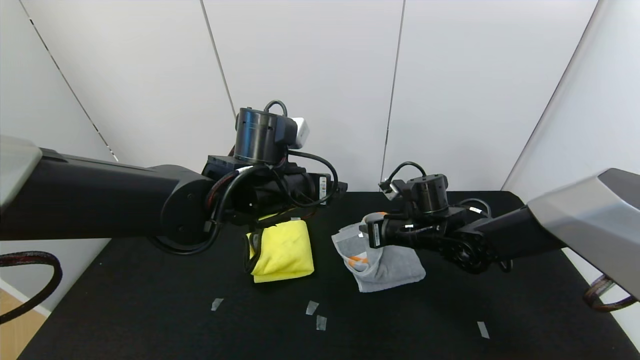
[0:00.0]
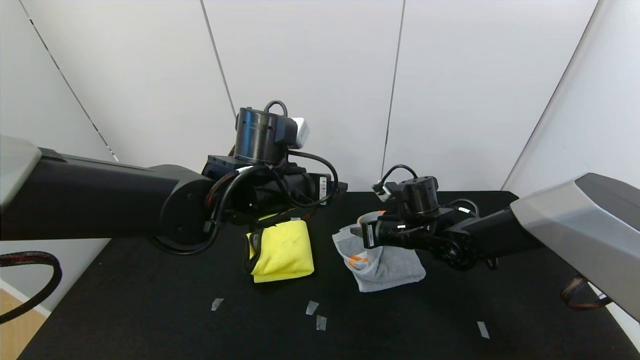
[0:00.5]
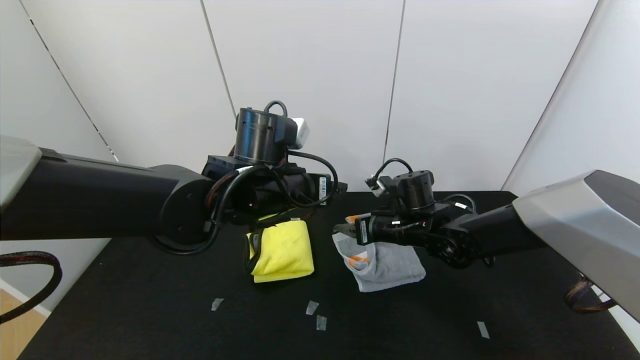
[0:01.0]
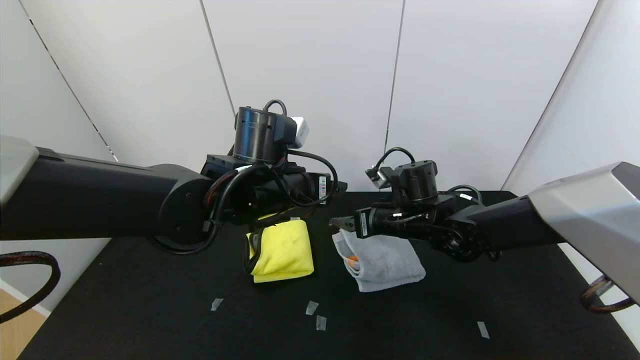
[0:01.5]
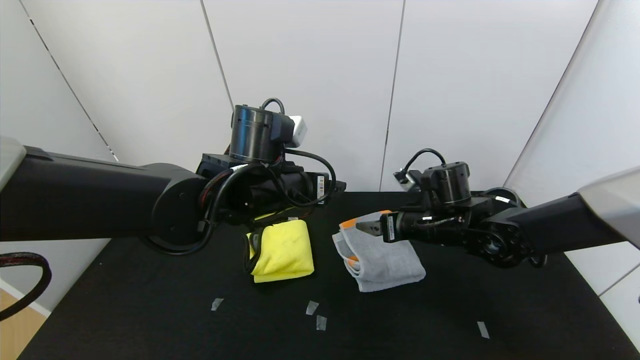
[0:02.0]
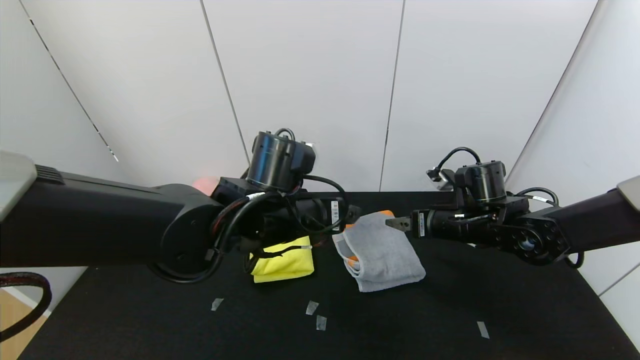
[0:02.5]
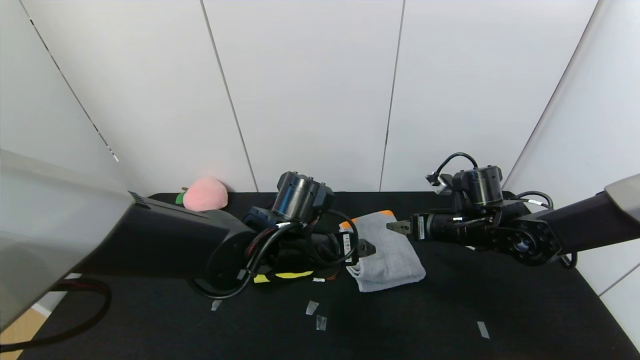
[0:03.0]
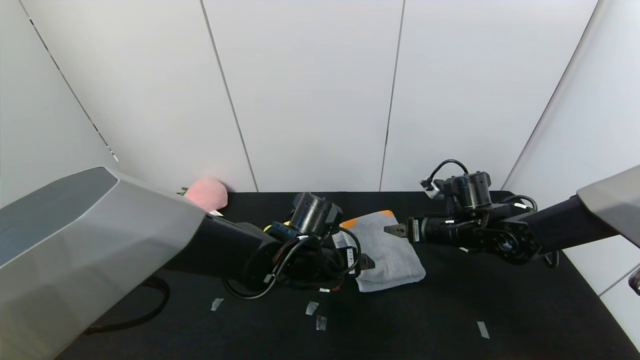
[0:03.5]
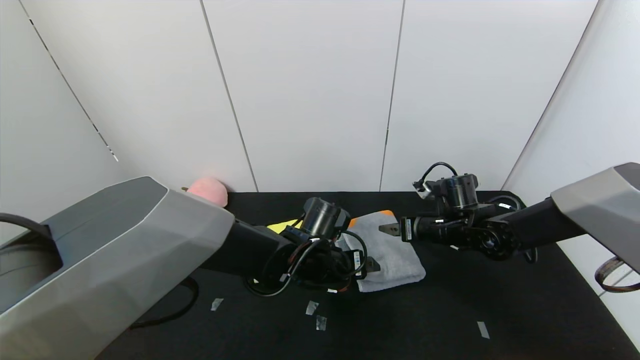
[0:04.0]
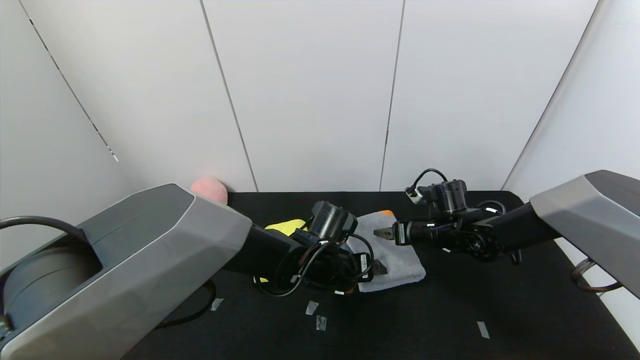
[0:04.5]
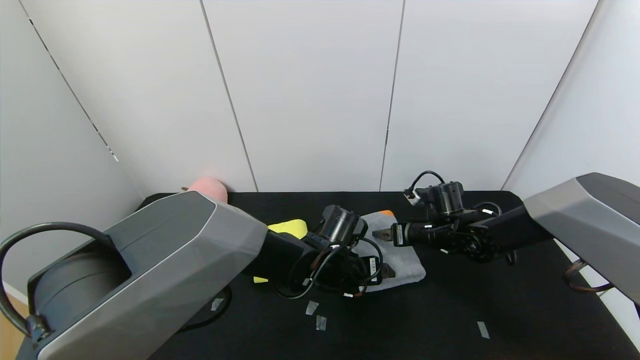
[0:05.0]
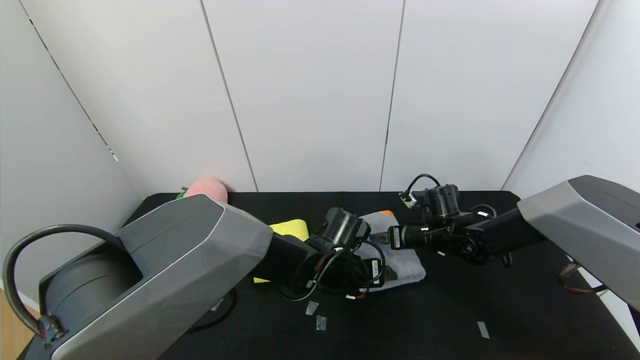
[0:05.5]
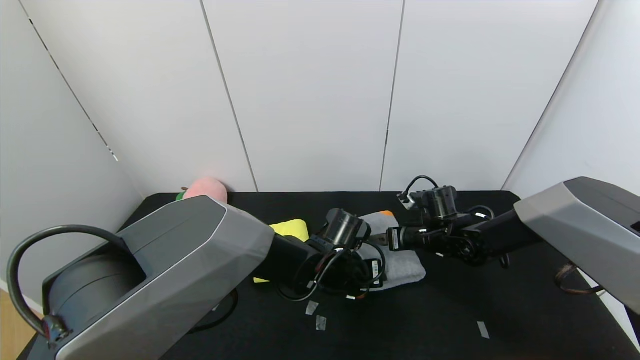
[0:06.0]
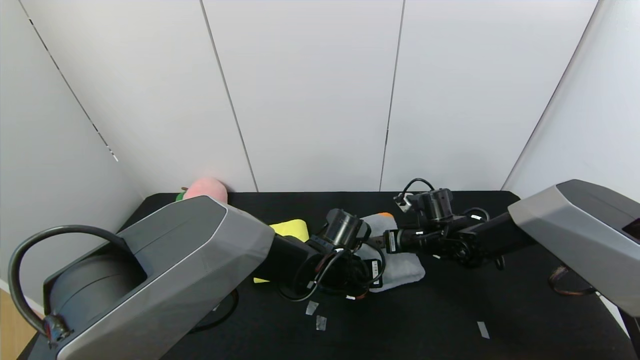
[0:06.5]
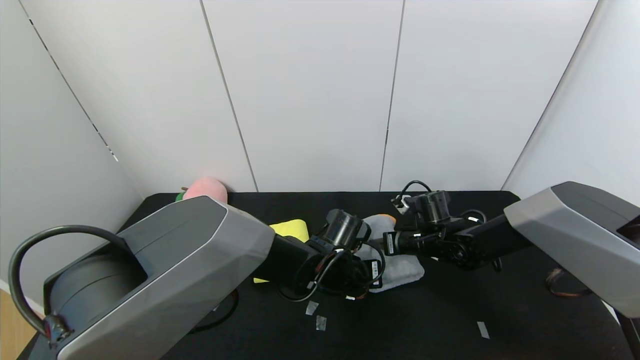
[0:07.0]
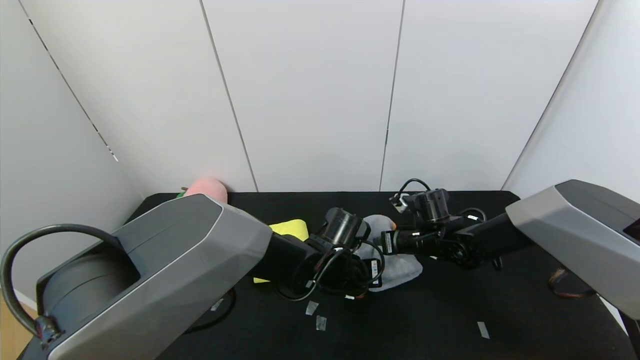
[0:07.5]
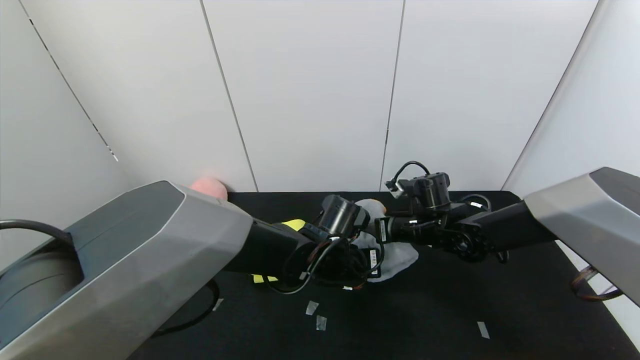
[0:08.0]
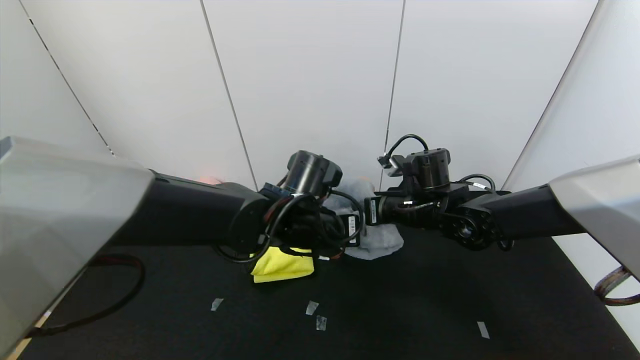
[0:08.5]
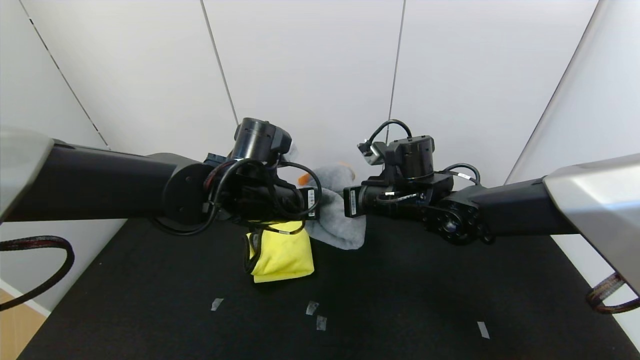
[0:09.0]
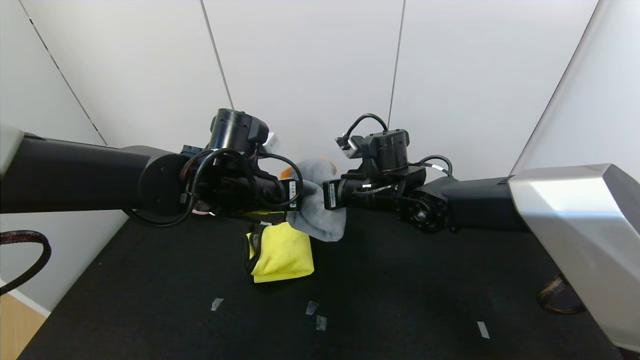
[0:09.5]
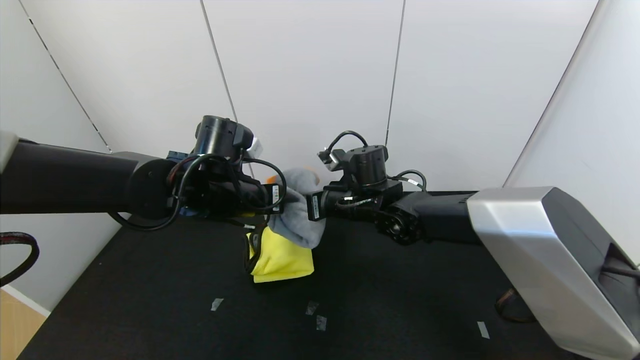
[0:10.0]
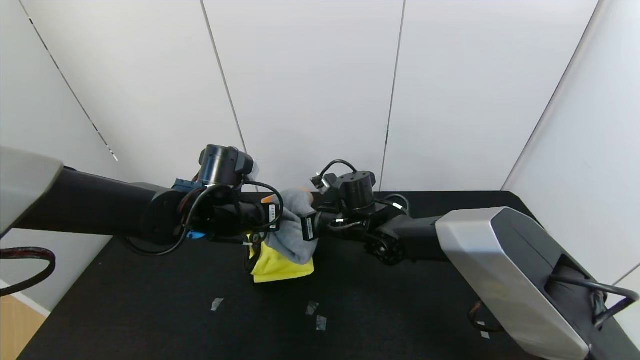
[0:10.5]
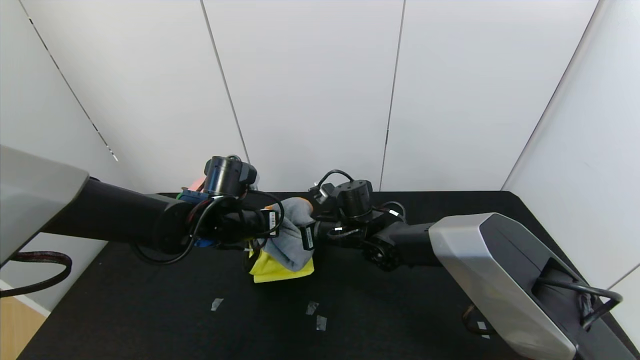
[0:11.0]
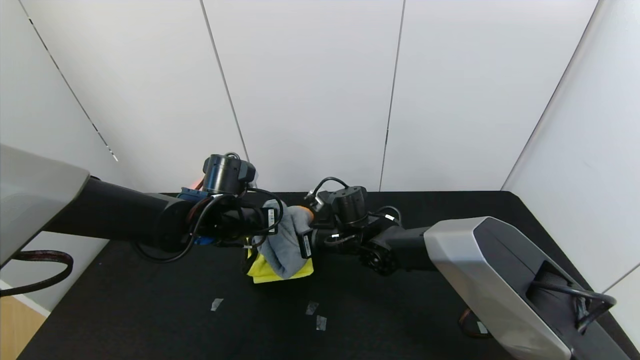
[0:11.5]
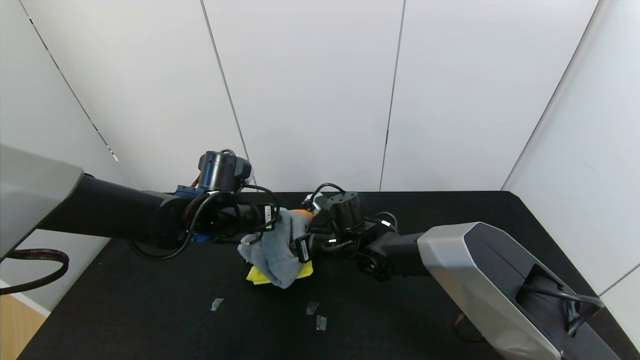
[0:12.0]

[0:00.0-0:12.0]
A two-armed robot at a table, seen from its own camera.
Task of the whole recording: Use the gripper to fold the yellow towel and grey towel in half twice,then put the yellow towel on the grey towel.
0:00.0 to 0:02.0: The right gripper opens up.
0:02.0 to 0:04.0: The left gripper goes approximately 15 cm downward, while the right gripper shifts by some 10 cm.
0:04.0 to 0:06.0: The left gripper closes up.
0:06.0 to 0:08.0: The left gripper closes up. The right gripper shifts by some 5 cm, and closes its fingers.
0:08.0 to 0:10.0: Both grippers move to the left and upward, roughly 15 cm.
0:10.0 to 0:12.0: The right gripper moves downward, roughly 10 cm, and opens up, while the left gripper goes about 5 cm downward, and opens up.

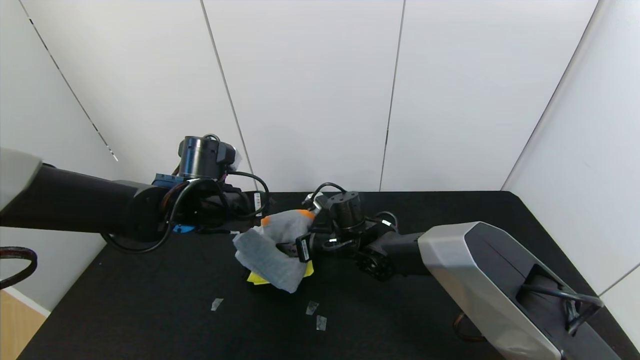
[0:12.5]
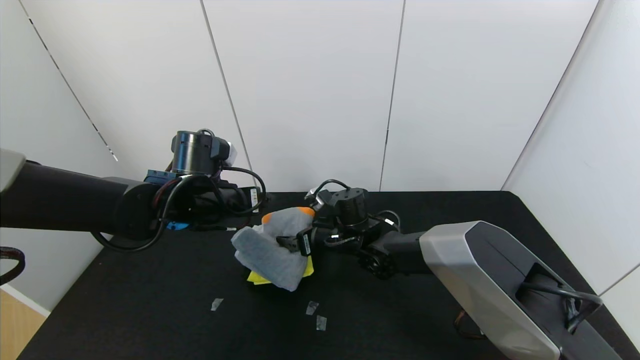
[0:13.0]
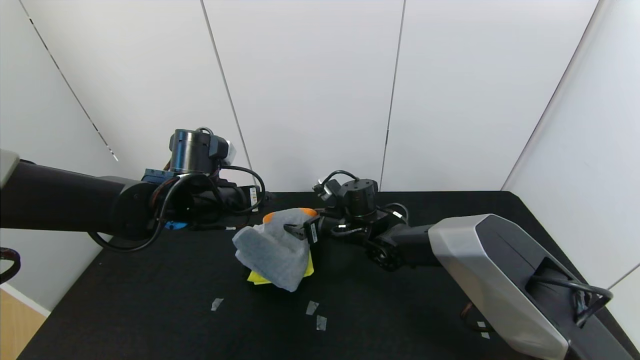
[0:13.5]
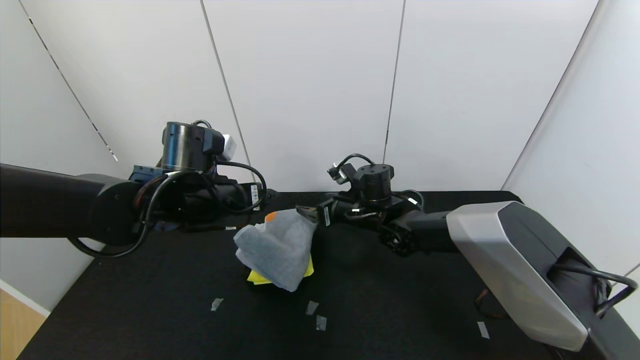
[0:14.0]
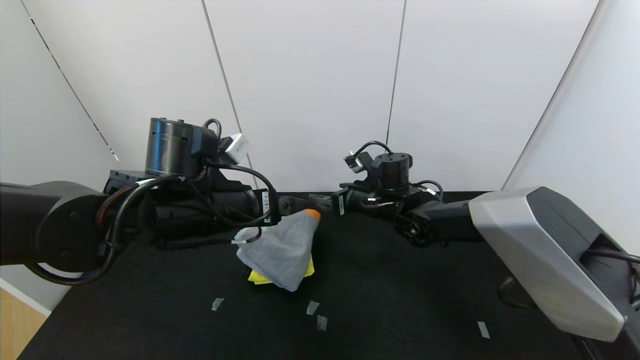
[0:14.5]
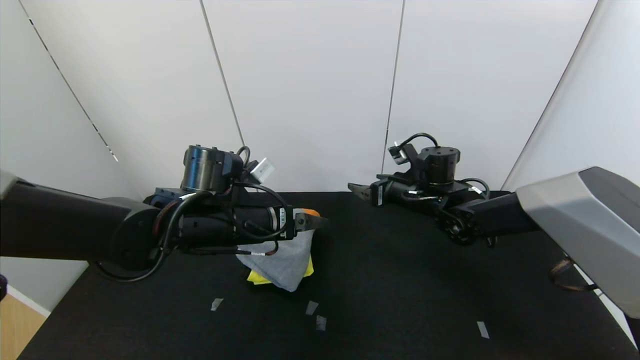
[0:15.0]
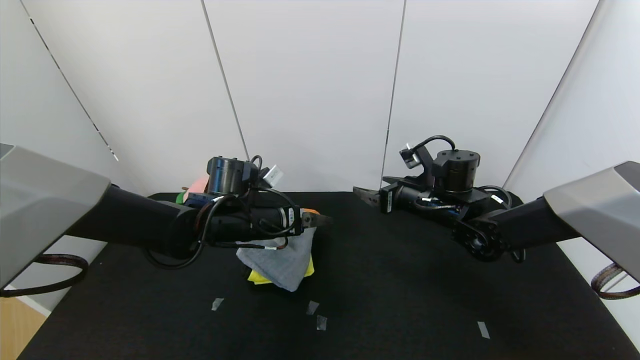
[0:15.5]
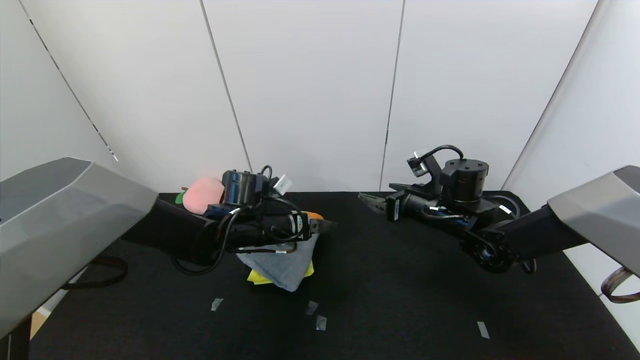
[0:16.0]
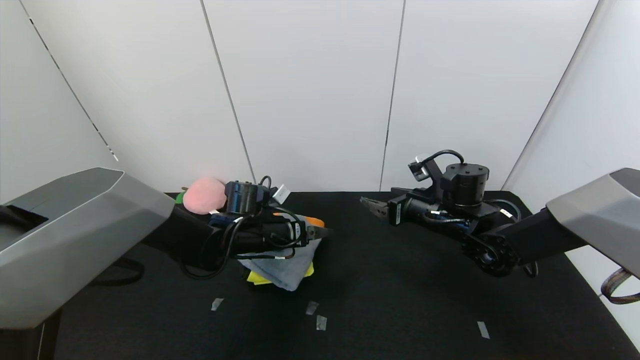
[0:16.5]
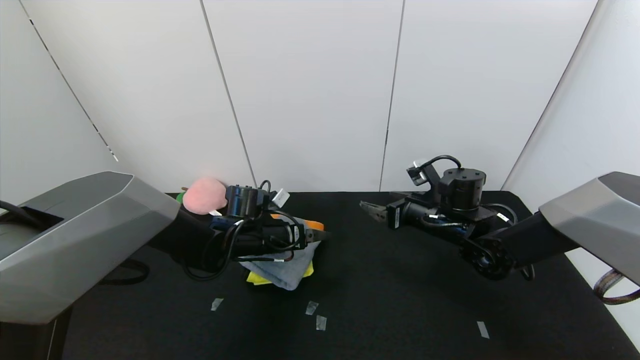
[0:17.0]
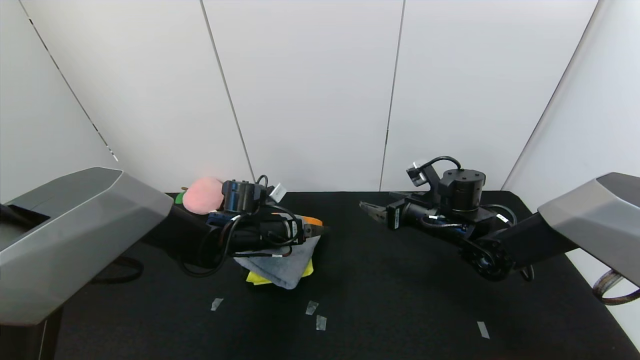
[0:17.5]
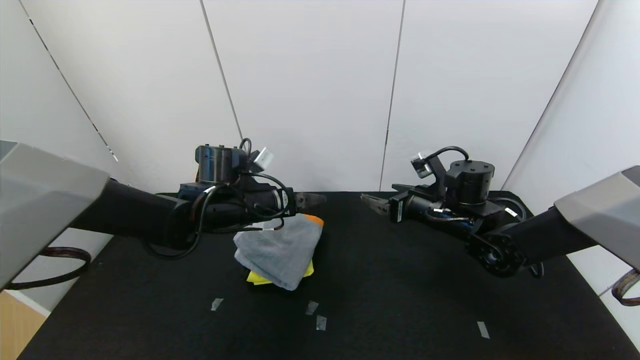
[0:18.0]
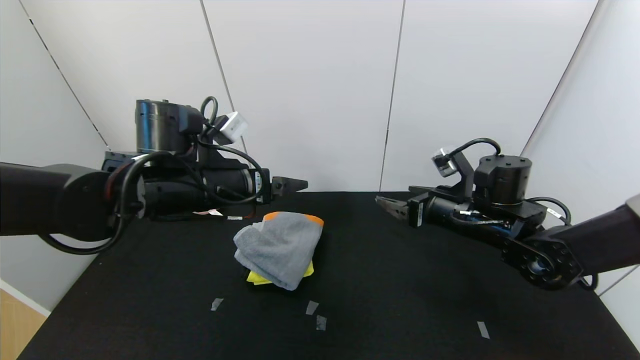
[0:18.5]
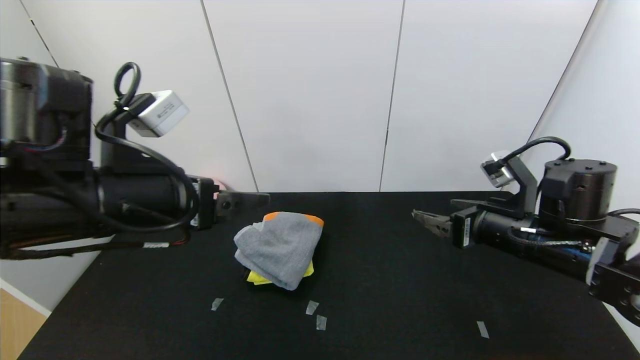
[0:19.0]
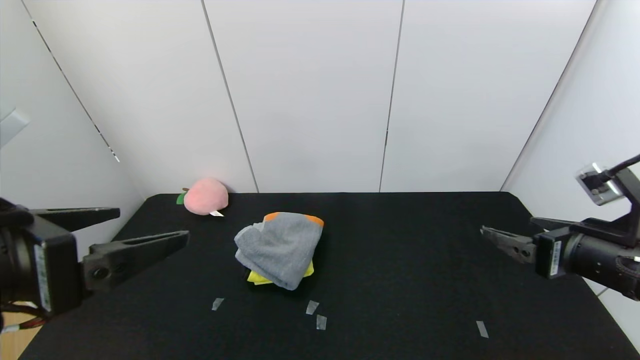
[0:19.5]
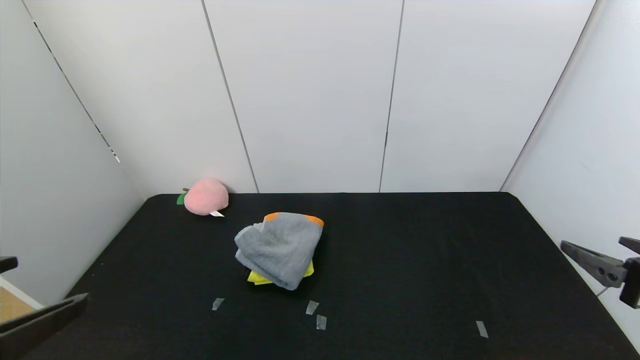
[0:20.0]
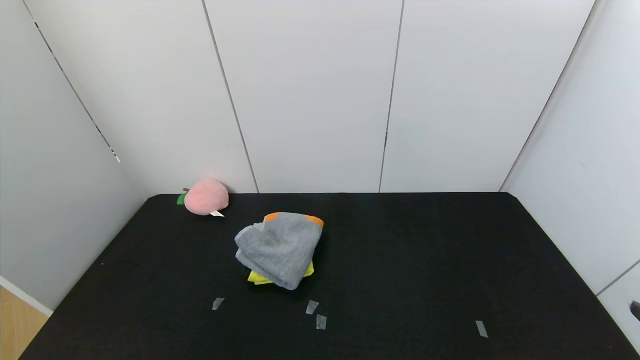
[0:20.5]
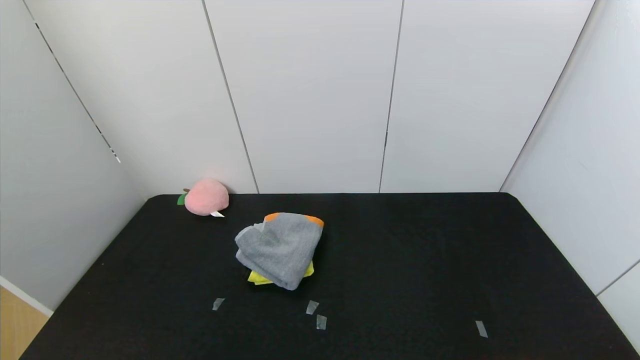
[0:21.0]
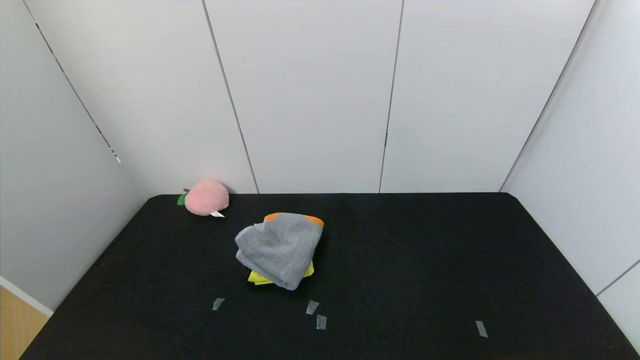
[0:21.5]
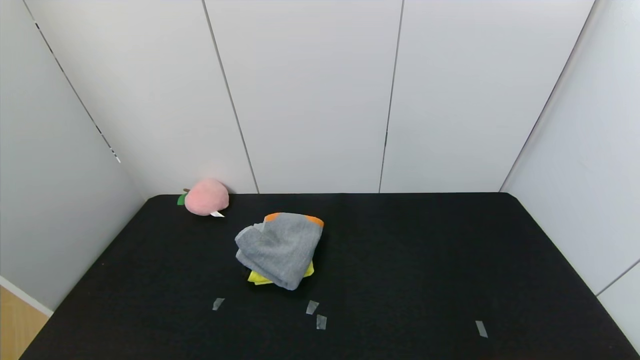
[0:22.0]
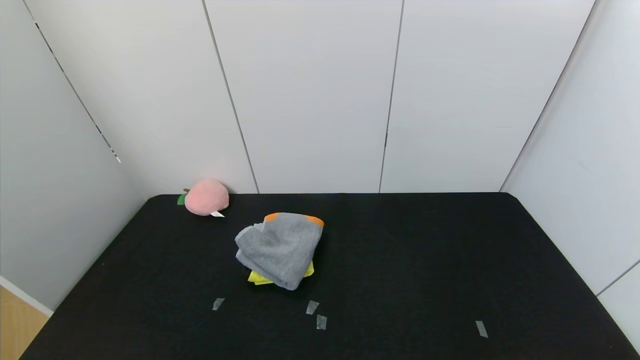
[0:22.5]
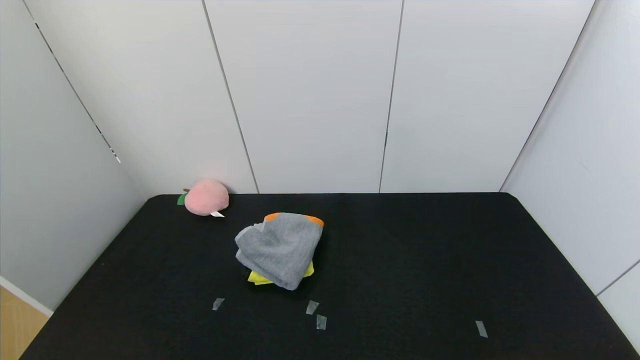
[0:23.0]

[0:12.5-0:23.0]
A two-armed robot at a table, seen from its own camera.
Task of the whole recording: Use the gripper to fold the yellow towel and grey towel in half twice,then put the yellow towel on the grey towel.
Step, 0:14.0 to 0:17.5: Press the gray towel with the left gripper.
0:12.5 to 0:14.5: The left gripper shifts some 5 cm backward, while the right gripper travels to the right and upward by some 10 cm.
0:14.5 to 0:16.5: The left gripper travels downward and forward by approximately 15 cm. Meanwhile the right gripper moves to the right and backward, approximately 10 cm.
0:16.5 to 0:19.0: The right gripper heads backward, to the right and upward, covering some 15 cm, while the left gripper travels upward and backward by about 25 cm.
0:19.0 to 0:21.0: The two grippers go about 30 cm backward.
